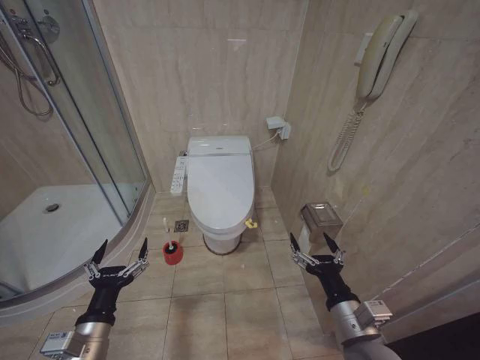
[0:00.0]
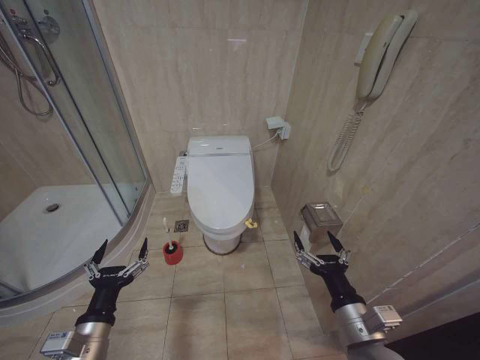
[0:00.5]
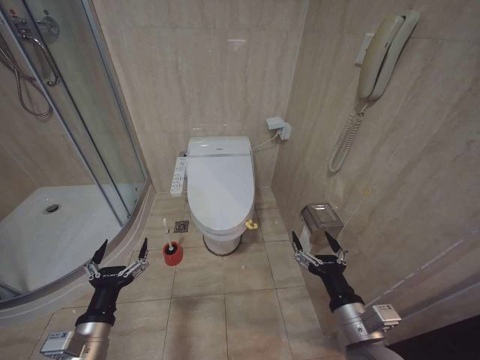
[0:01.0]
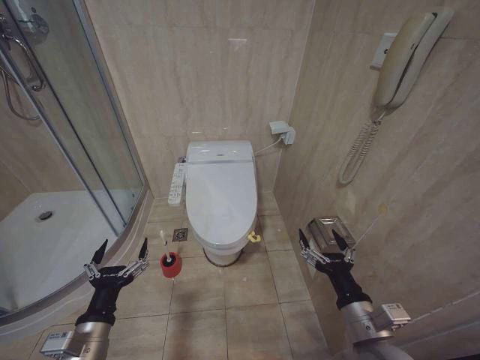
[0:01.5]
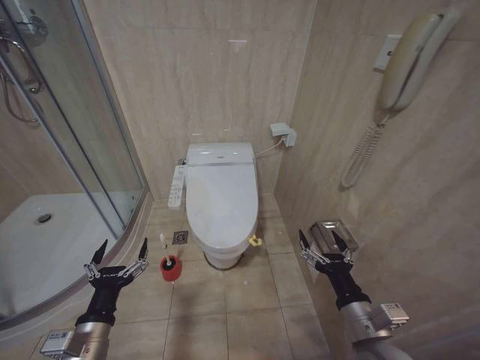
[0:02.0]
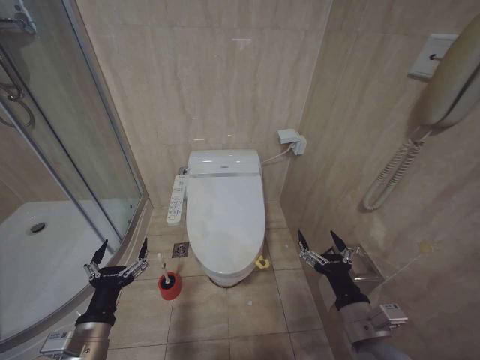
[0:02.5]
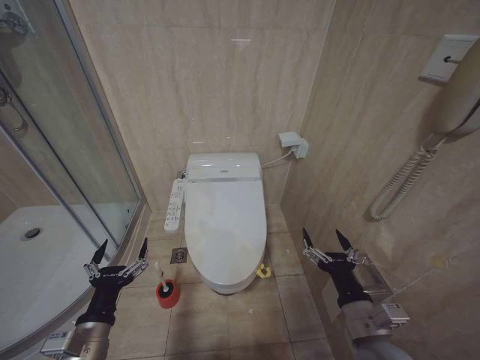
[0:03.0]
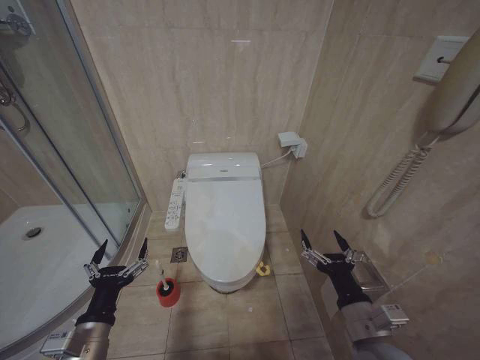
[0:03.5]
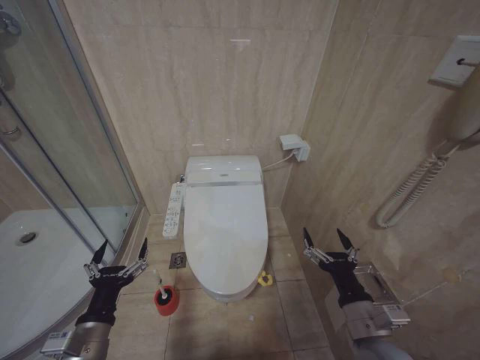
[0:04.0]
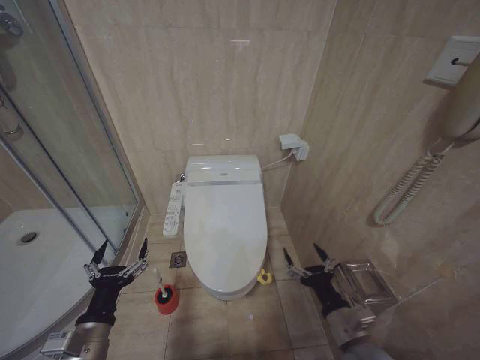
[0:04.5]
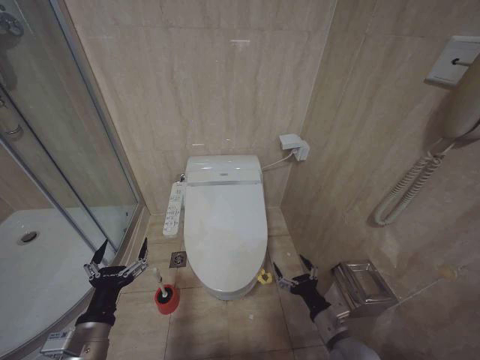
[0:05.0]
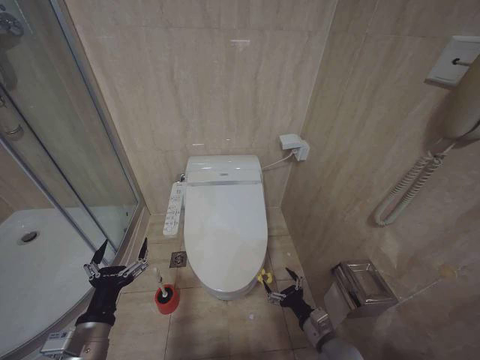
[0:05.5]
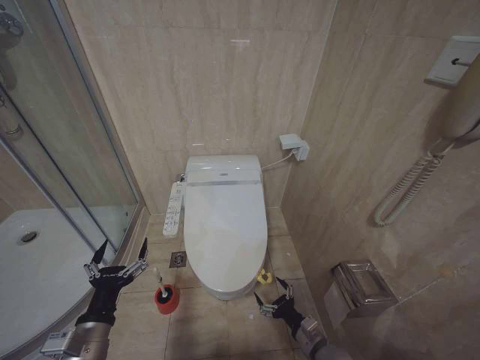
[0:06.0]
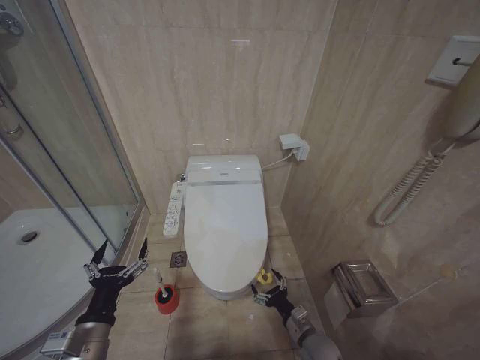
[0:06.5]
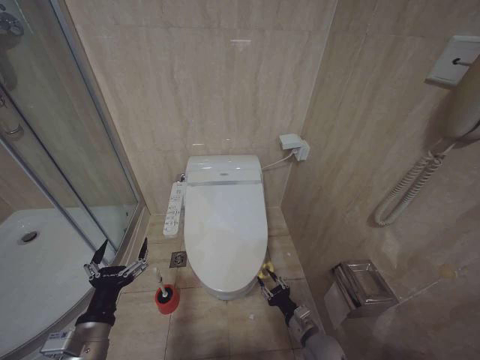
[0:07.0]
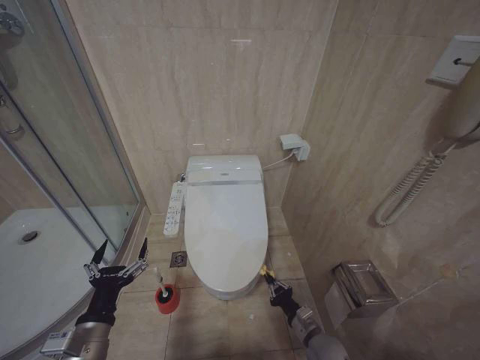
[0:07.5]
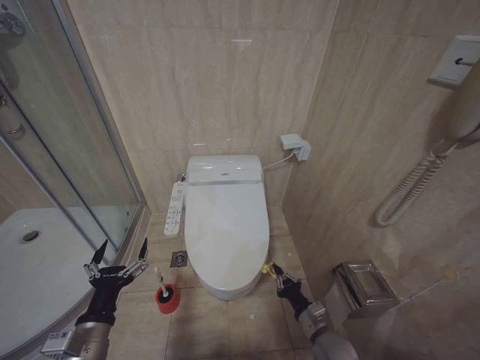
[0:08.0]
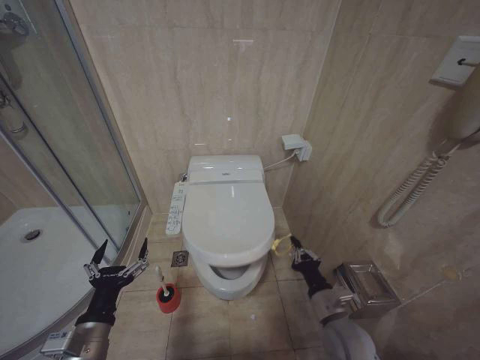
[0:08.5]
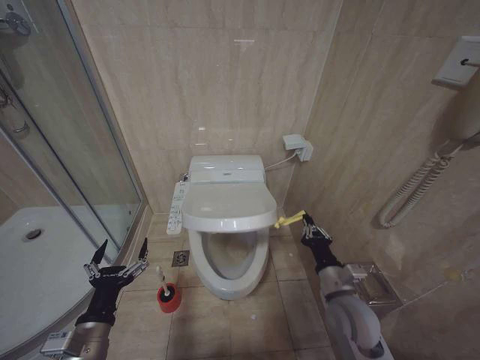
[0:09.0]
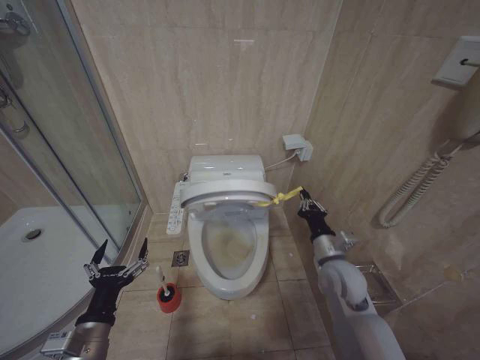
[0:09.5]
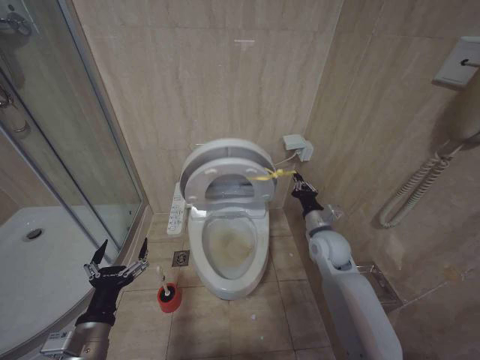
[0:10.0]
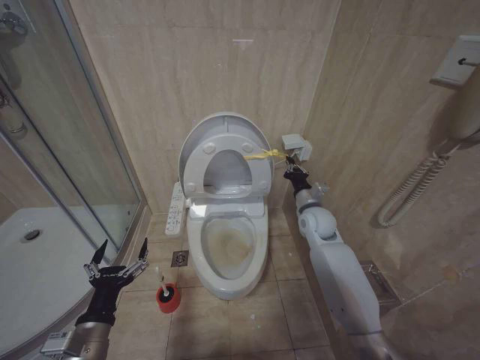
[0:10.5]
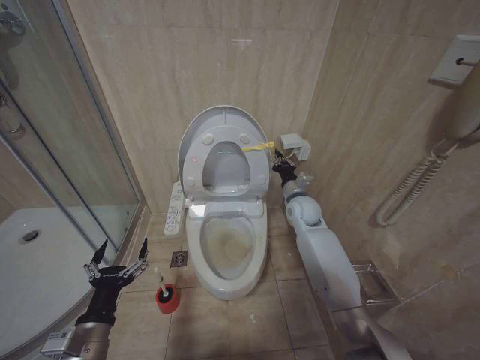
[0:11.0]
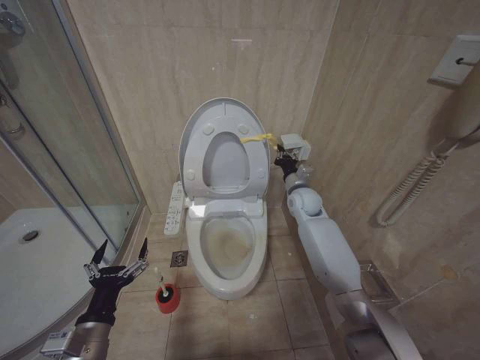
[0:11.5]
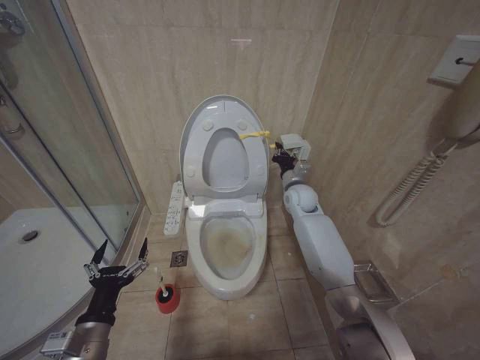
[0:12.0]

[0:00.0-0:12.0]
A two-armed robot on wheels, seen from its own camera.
Task of the whole recording: Open the toilet lid, clean the toilet bowl with a toilet brush, close the toilet lid, and flush.
2.0 to 4.0 s: Neither gripper changes place.
4.0 to 6.0 s: The right gripper travels downward by some 20 cm.
6.0 to 8.0 s: The right gripper closes its fingers.
8.0 to 10.0 s: The right gripper travels upward and forward by about 25 cm.
10.0 to 12.0 s: The right gripper goes roughly 15 cm forward.

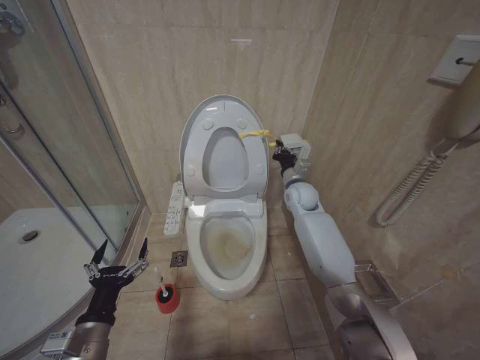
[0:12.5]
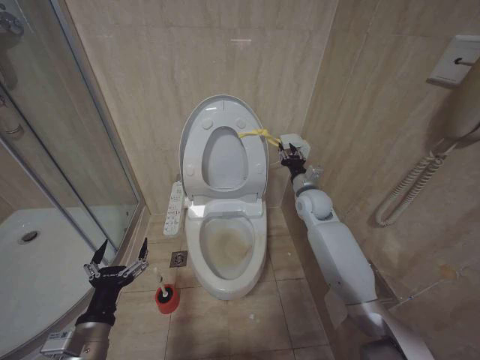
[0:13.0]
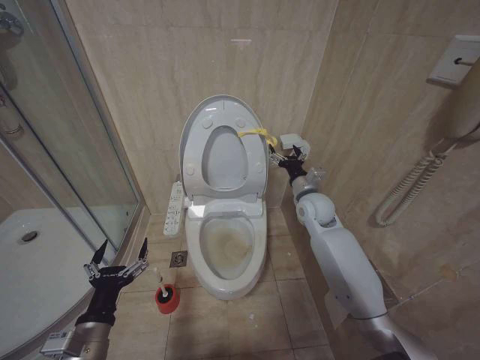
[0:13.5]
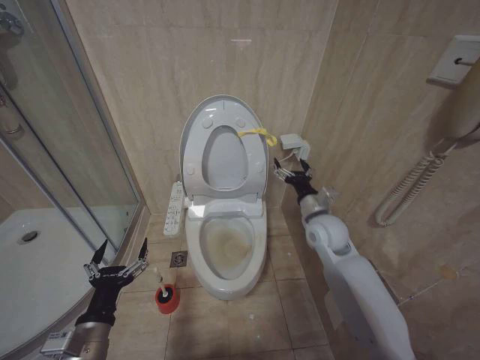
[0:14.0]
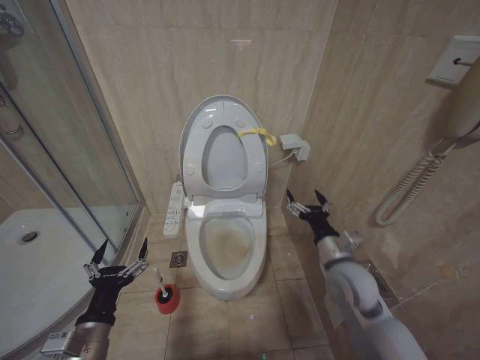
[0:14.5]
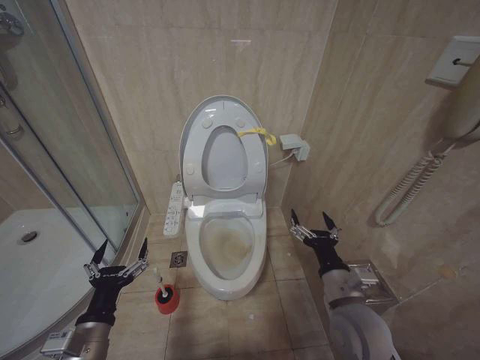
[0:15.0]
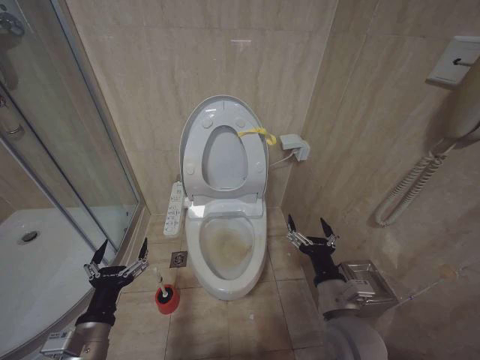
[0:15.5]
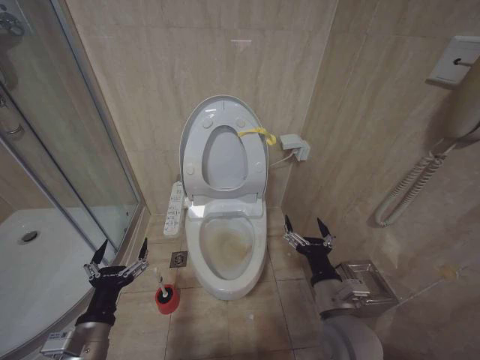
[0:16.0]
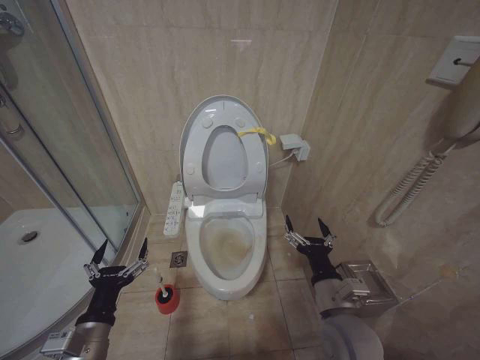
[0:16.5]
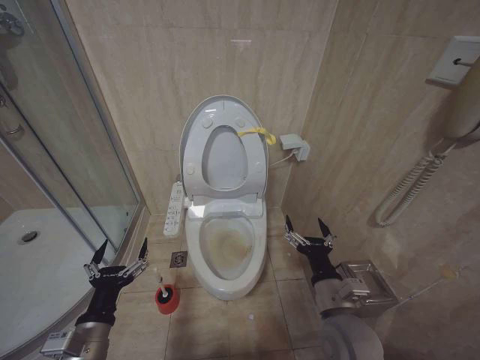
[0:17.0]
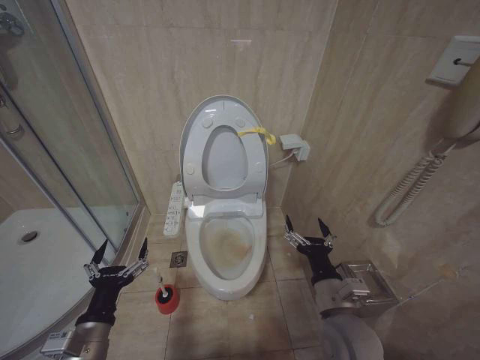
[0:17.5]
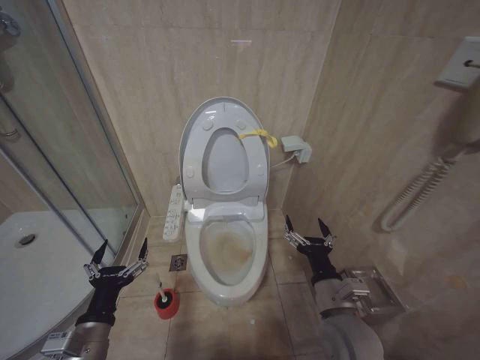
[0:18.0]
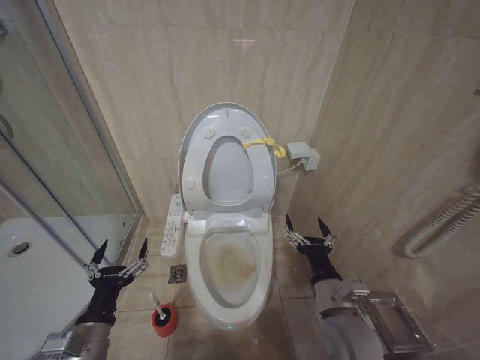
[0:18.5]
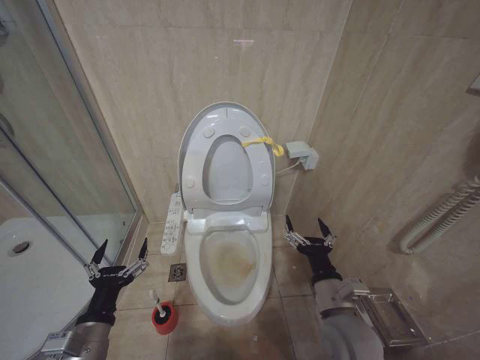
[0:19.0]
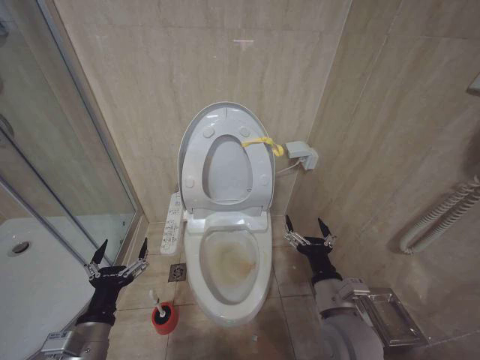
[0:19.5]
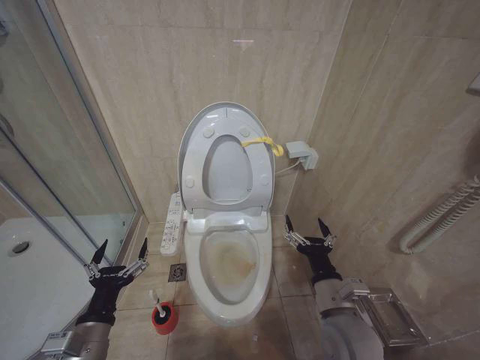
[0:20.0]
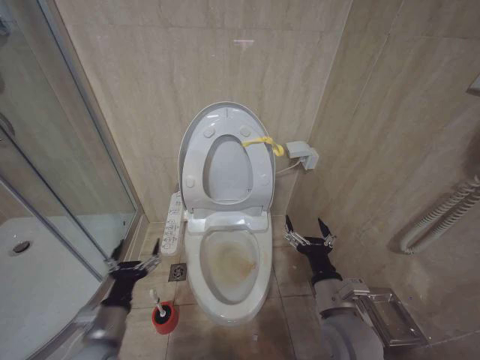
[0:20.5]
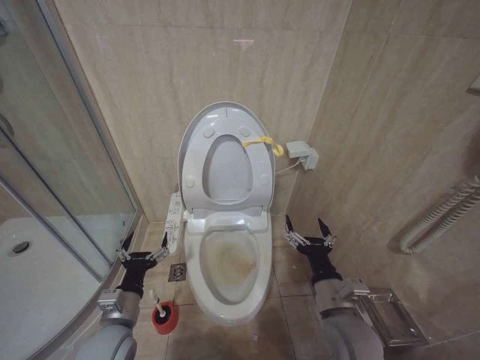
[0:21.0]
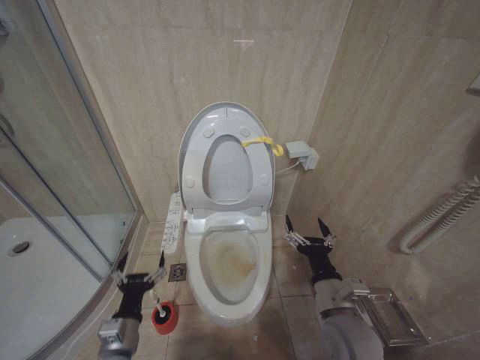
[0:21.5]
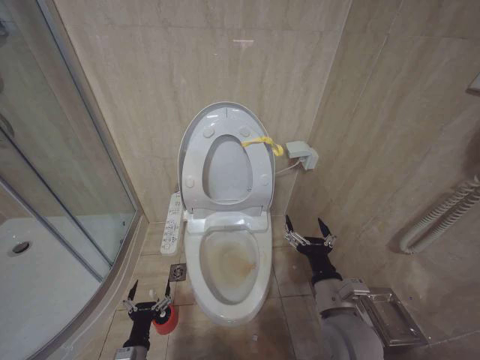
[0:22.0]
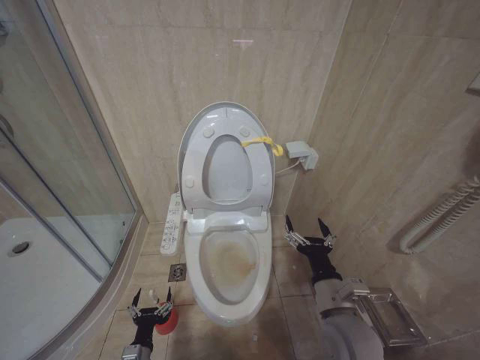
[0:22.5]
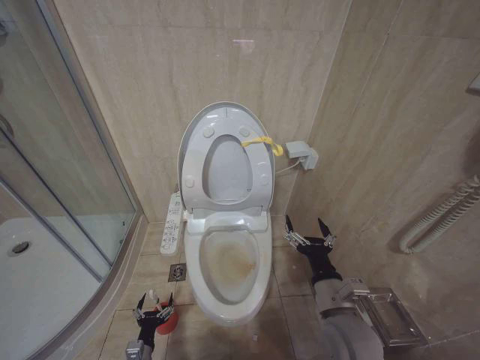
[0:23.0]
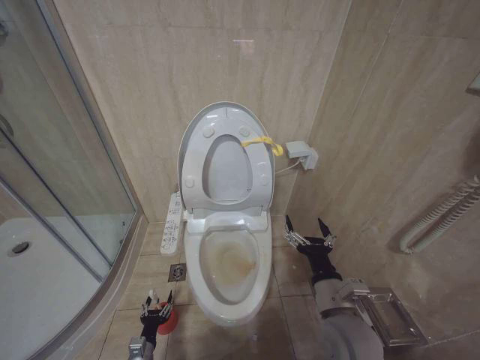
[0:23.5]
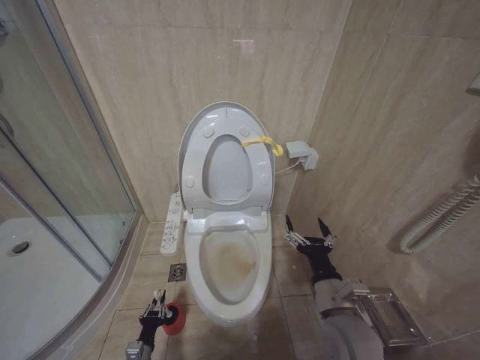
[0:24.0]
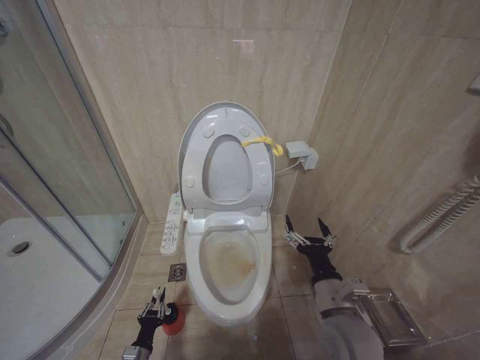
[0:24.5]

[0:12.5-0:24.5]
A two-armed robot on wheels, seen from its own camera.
Task of the whole recording: Open the toilet lid, clean the toilet bowl with a toilet brush, close the toilet lid, and flush.
12.5 to 14.5 s: The right gripper shifts roughly 25 cm backward, and opens its fingers.
14.5 to 16.5 s: The right gripper travels backward by roughly 10 cm.
16.5 to 18.5 s: The two grippers keep their place.
18.5 to 20.5 s: There are only small adjustments of the grippers.
20.5 to 22.5 s: The left gripper shifts roughly 20 cm downward.
22.5 to 24.5 s: The left gripper goes about 5 cm downward, and closes its fingers.

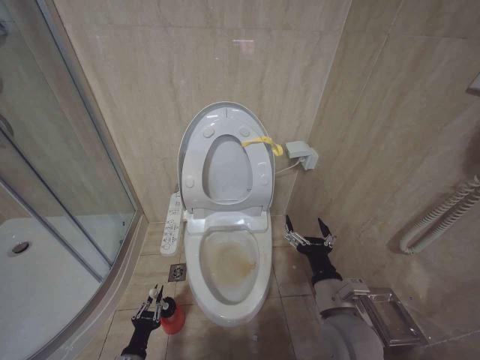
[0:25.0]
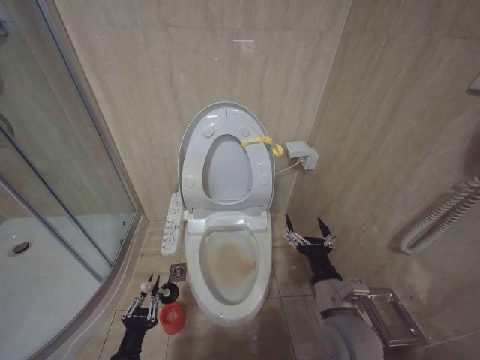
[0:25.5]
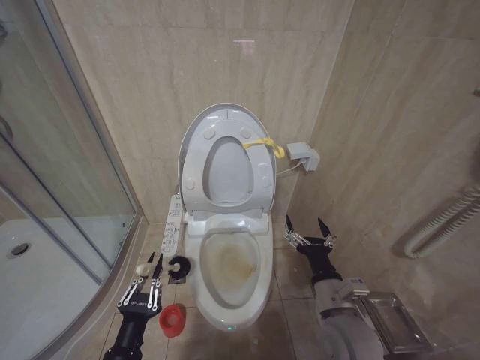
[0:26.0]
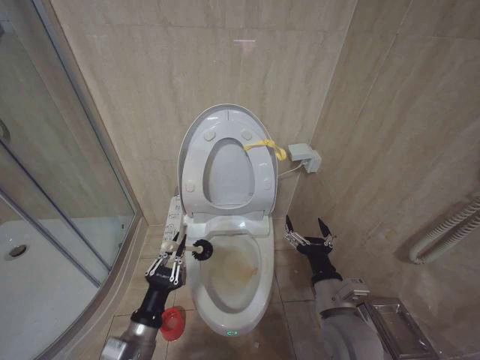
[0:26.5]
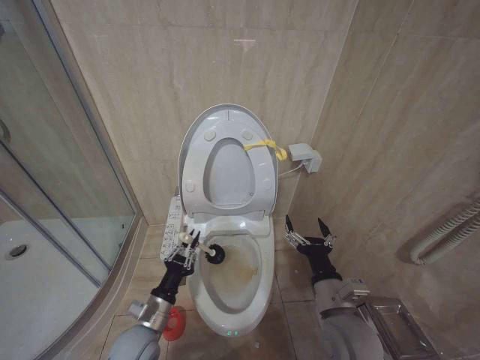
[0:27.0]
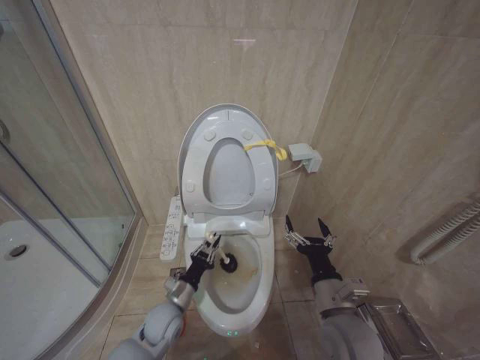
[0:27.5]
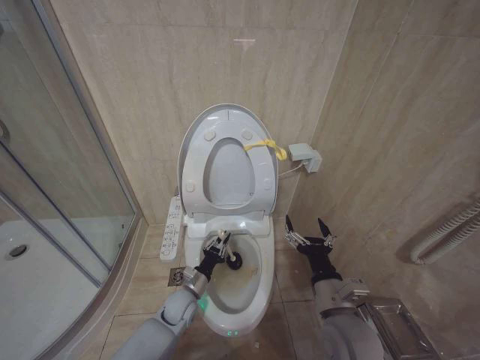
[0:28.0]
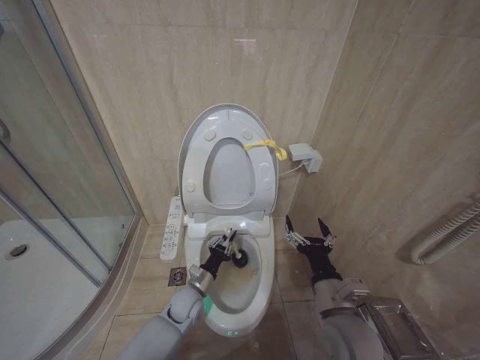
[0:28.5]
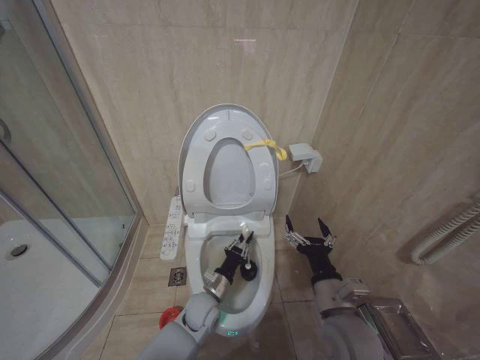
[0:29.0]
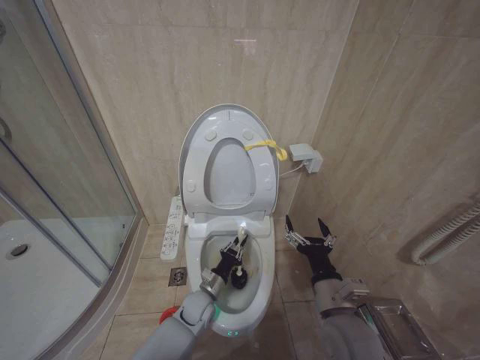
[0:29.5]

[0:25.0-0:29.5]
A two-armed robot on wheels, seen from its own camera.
Task of the whole recording: Open the toilet lid, clean the toilet bowl with a toilet brush, close the toilet lid, and flush.
25.0 to 27.0 s: The left gripper heads upward and to the right, covering about 20 cm.
27.0 to 29.5 s: The left gripper moves forward, to the right and downward, approximately 20 cm.
